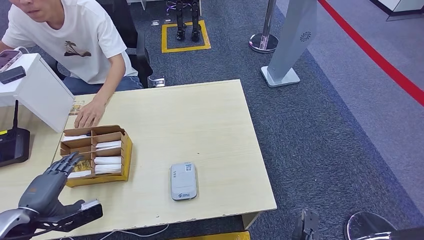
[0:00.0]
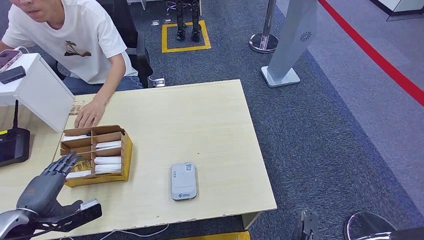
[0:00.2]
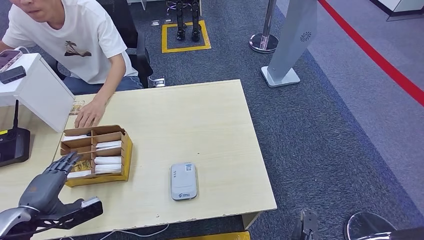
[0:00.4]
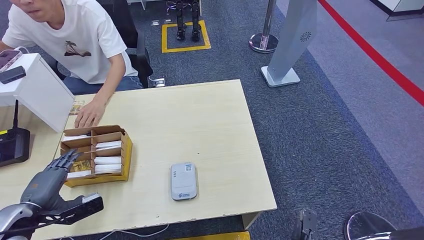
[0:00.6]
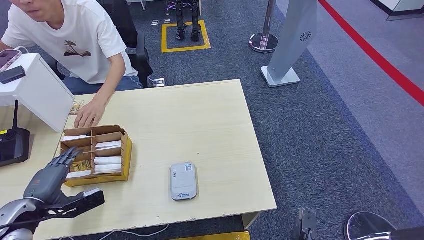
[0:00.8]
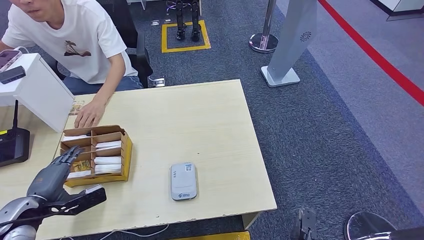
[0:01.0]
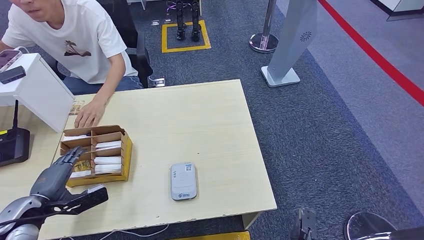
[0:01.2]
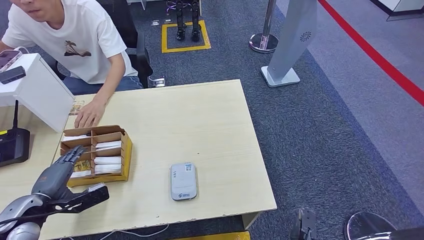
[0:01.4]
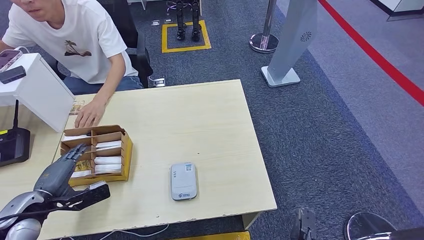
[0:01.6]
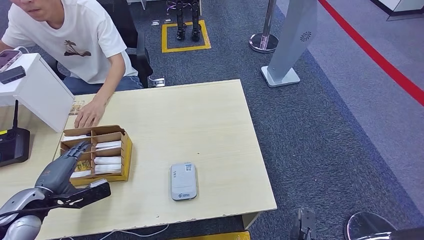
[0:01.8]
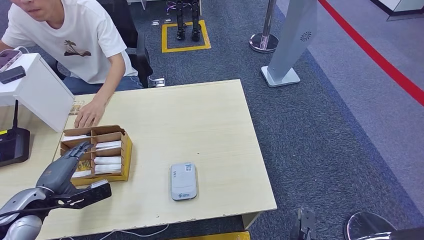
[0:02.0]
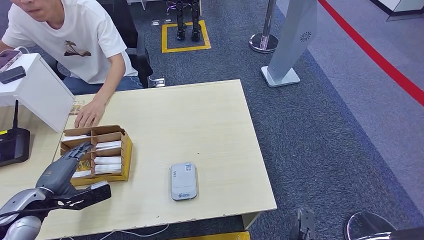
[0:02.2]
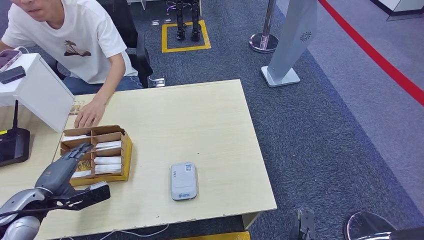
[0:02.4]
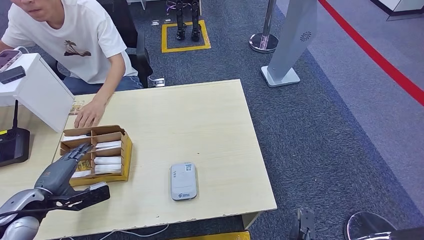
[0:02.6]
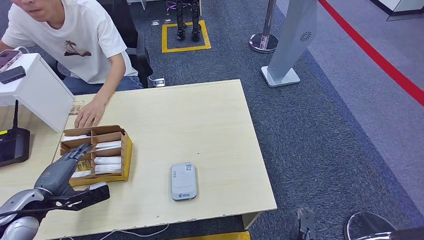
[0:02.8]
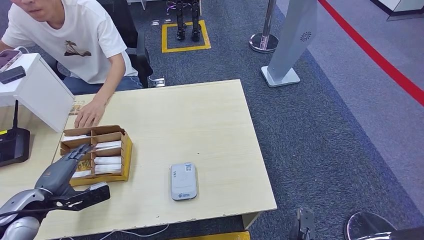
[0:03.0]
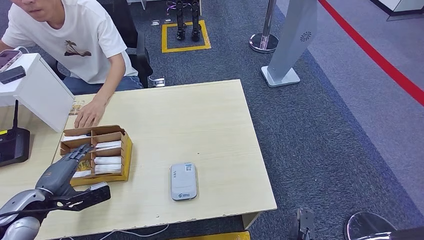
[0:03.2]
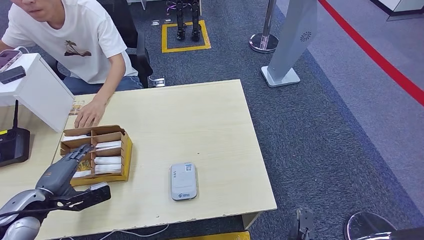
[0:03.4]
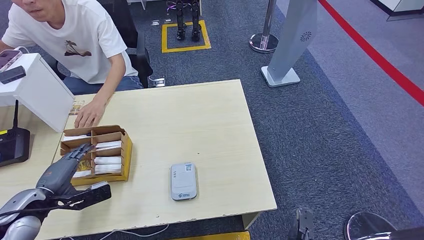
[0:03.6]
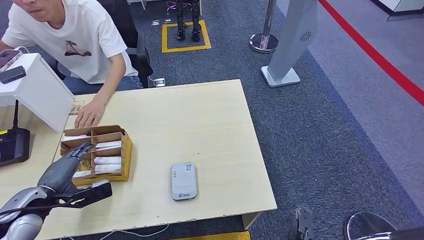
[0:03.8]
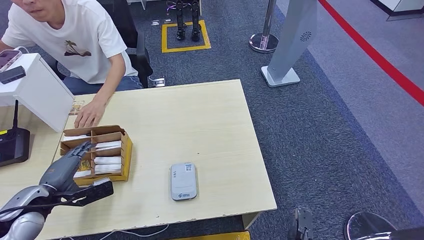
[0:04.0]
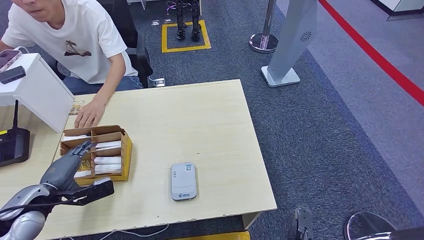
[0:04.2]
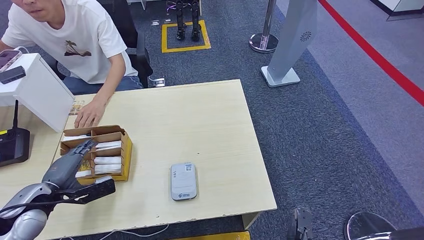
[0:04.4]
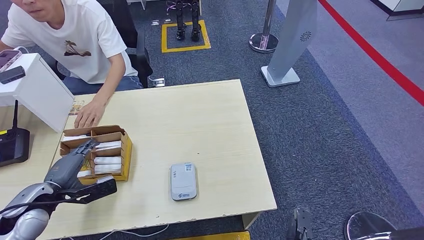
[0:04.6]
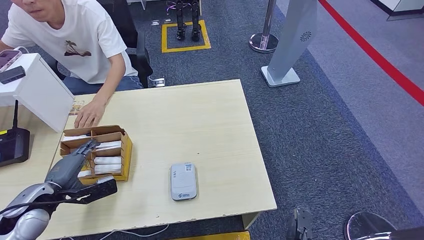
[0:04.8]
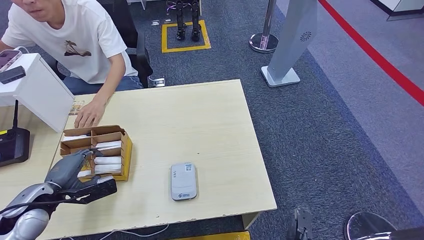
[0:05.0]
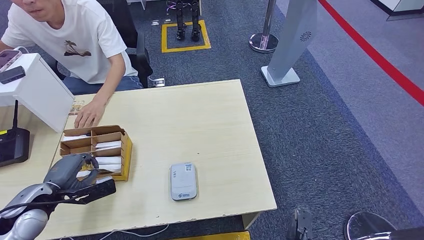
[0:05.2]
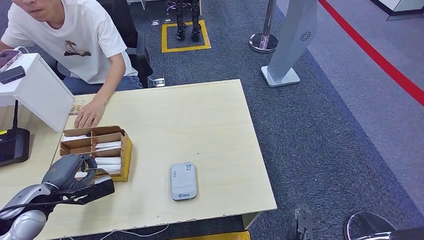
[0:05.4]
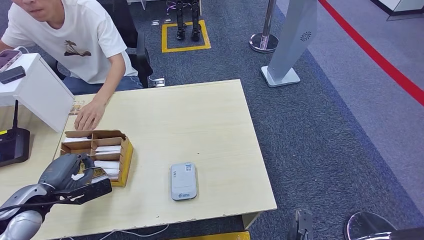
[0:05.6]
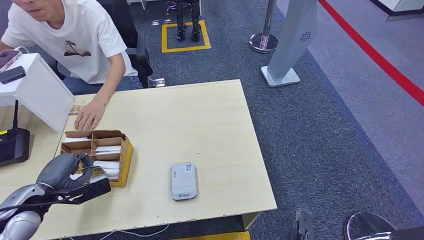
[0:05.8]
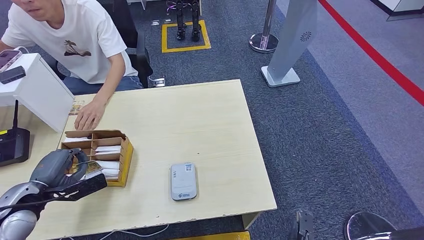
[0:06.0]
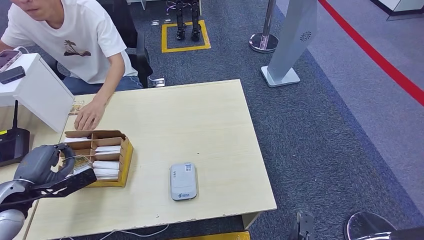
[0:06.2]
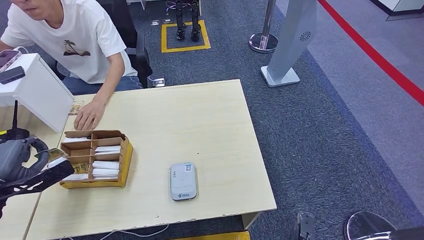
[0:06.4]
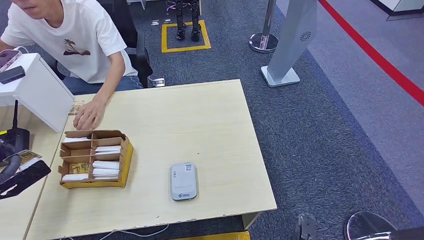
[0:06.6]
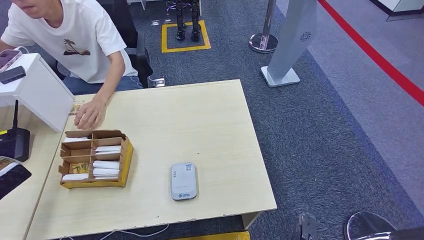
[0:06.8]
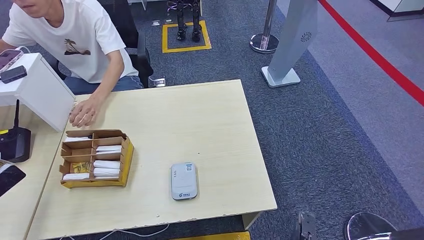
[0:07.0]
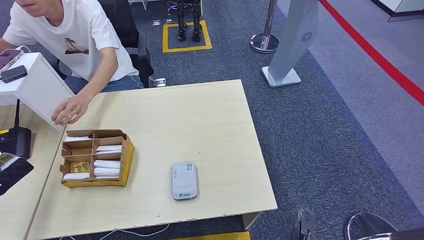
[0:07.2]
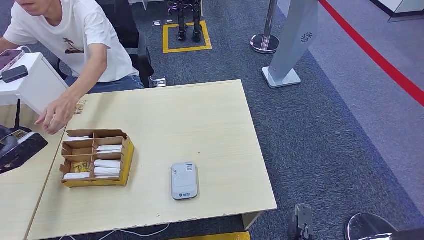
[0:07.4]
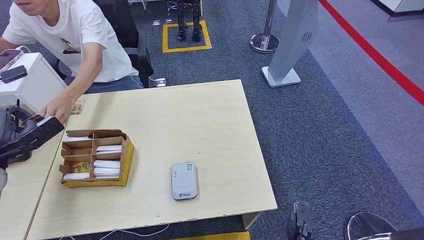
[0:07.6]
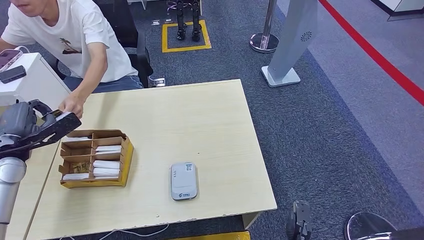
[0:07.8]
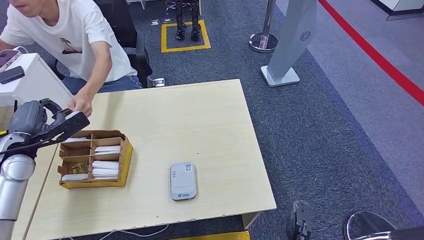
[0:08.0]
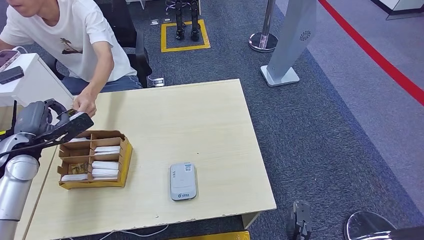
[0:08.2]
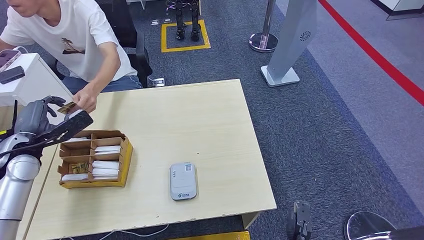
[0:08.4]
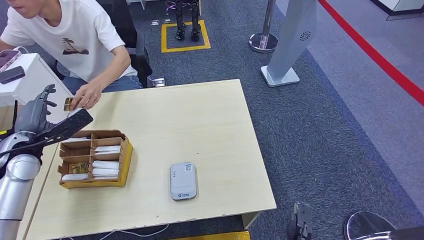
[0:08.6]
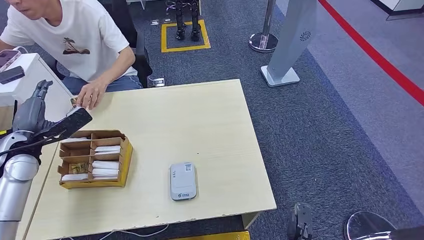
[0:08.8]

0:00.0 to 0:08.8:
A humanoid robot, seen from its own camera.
Step, 0:00.0 to 0:06.4: Pick up the room key from the key card box.
Step, 0:06.6 to 0:08.6: Hand the room key to the person.
0:00.0 to 0:03.0: The hands move only a little.
0:03.0 to 0:04.4: The hands stay close to where they were, moving slightly.
0:04.4 to 0:05.8: Both hands stay about where they are.
0:05.8 to 0:07.4: The left hand heads to the left and upward, covering some 10 cm.
0:07.4 to 0:08.8: The left hand goes roughly 10 cm to the right and forward.

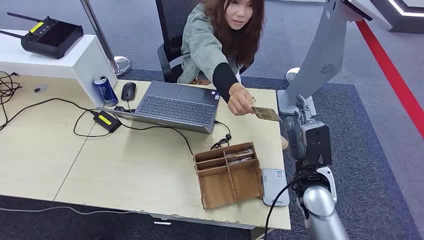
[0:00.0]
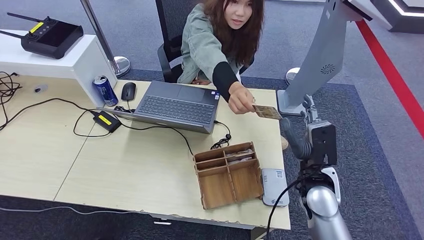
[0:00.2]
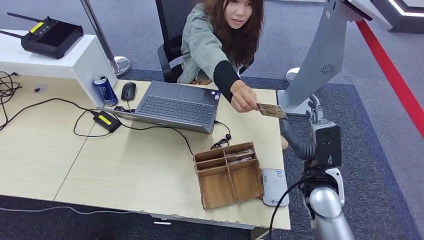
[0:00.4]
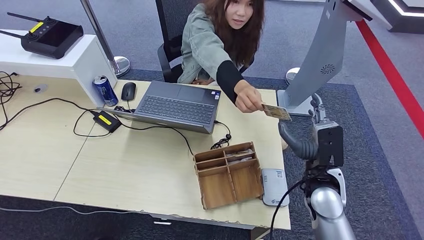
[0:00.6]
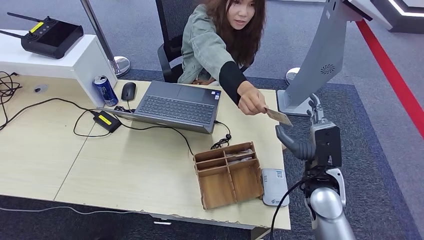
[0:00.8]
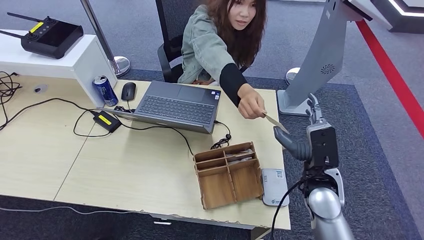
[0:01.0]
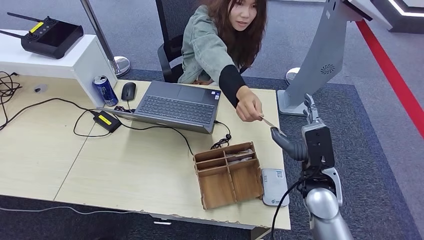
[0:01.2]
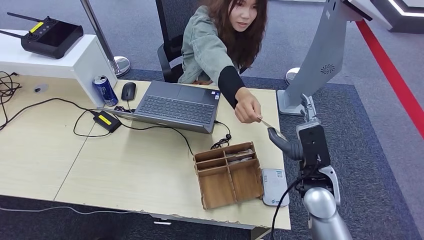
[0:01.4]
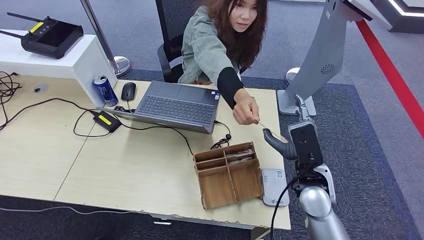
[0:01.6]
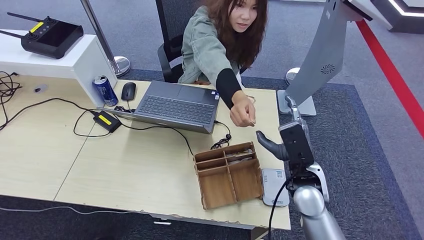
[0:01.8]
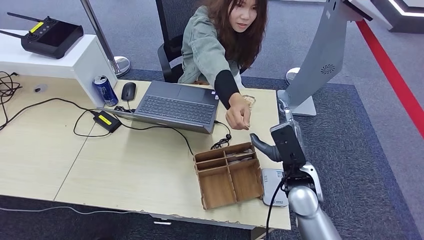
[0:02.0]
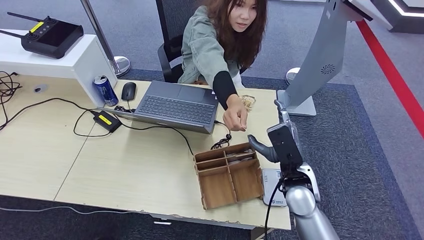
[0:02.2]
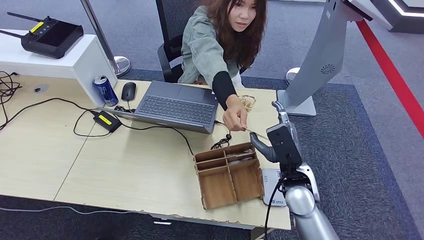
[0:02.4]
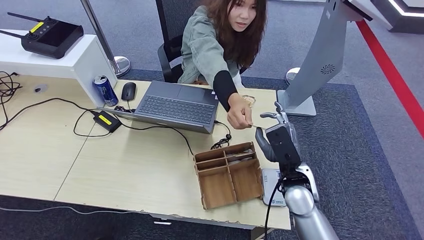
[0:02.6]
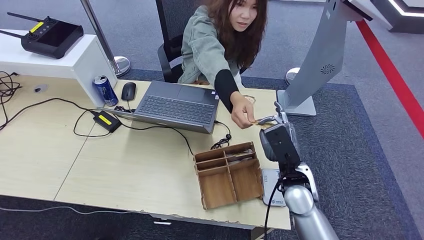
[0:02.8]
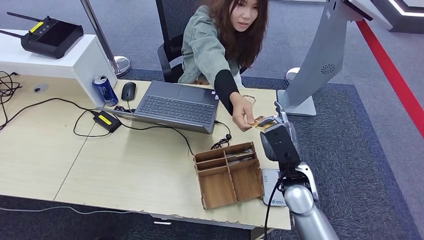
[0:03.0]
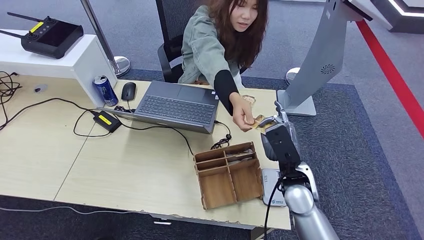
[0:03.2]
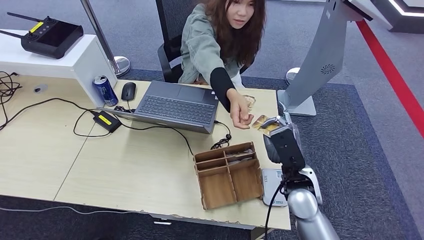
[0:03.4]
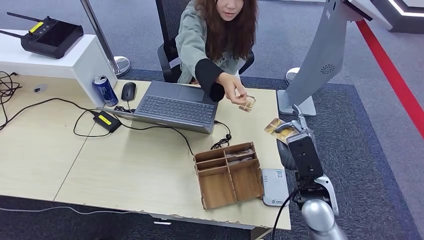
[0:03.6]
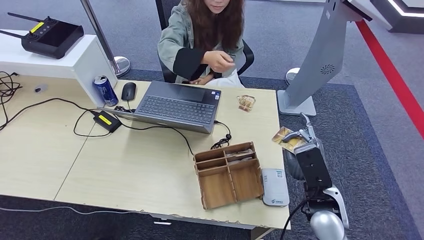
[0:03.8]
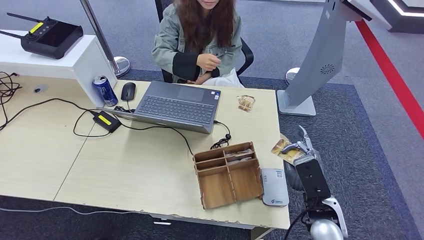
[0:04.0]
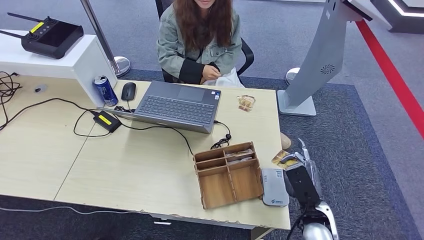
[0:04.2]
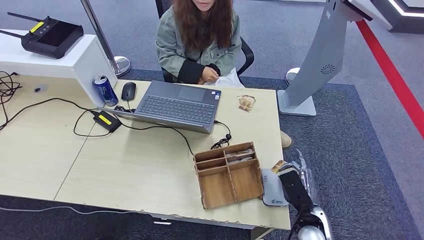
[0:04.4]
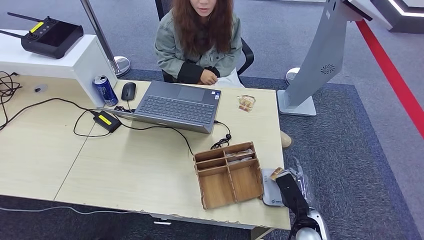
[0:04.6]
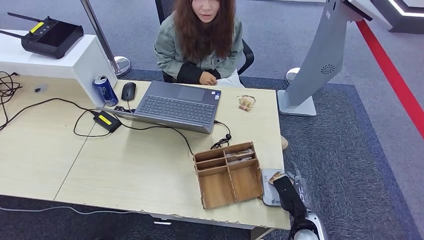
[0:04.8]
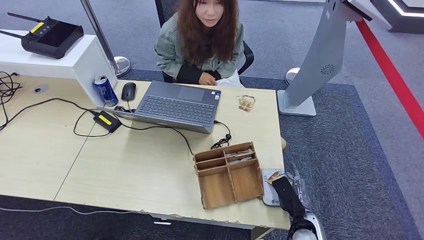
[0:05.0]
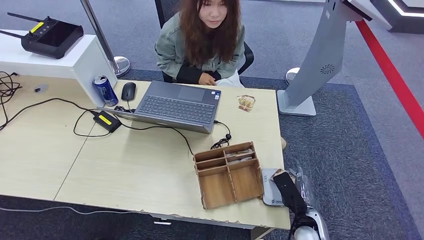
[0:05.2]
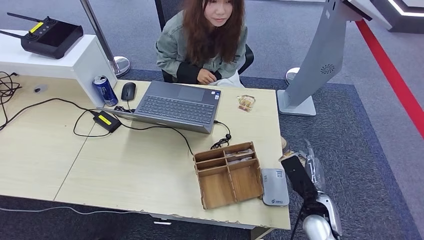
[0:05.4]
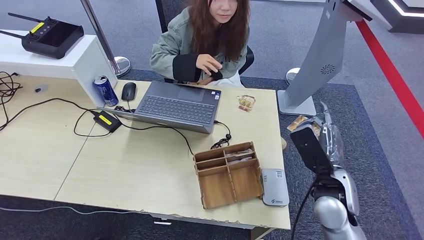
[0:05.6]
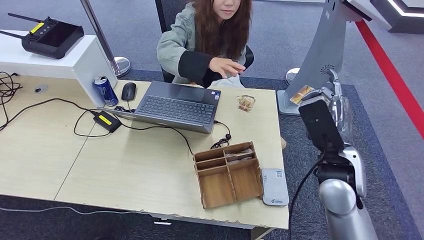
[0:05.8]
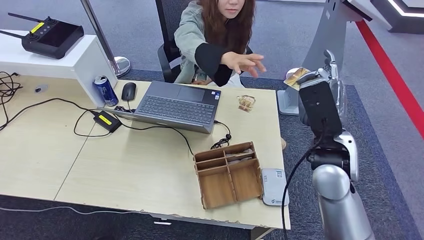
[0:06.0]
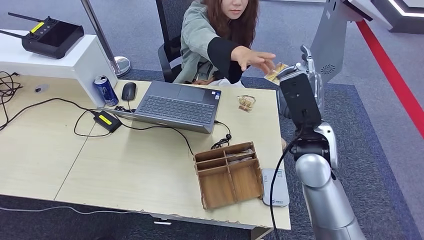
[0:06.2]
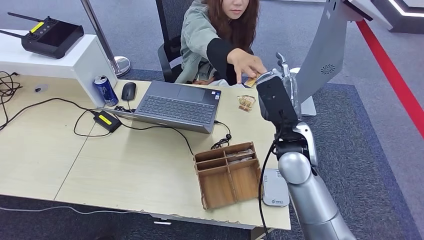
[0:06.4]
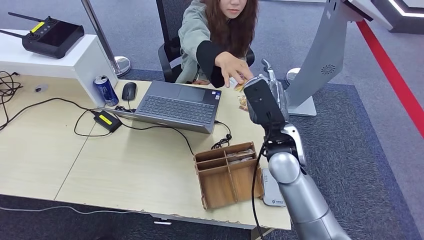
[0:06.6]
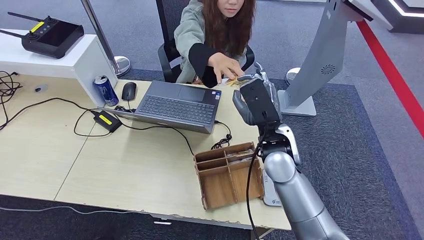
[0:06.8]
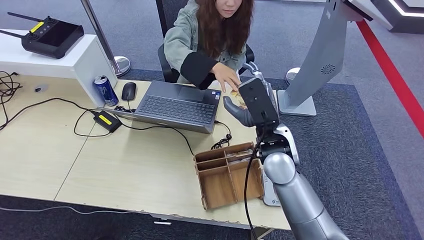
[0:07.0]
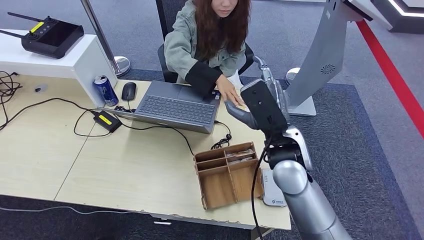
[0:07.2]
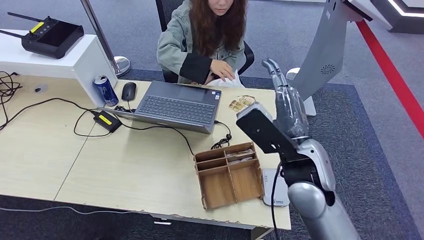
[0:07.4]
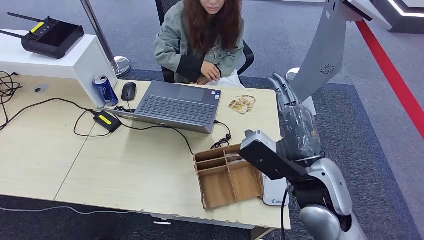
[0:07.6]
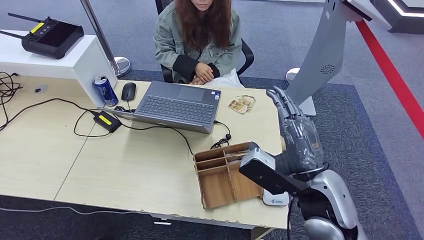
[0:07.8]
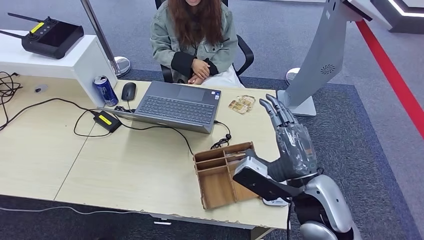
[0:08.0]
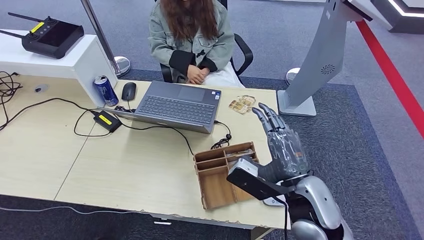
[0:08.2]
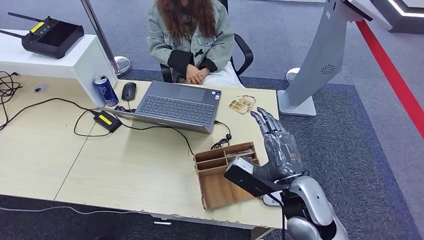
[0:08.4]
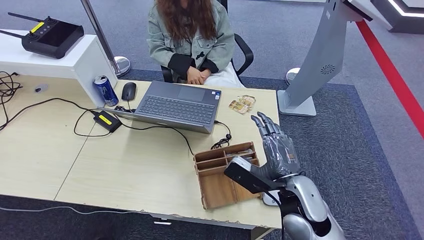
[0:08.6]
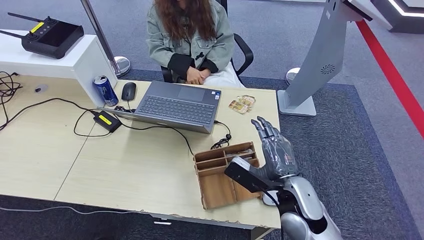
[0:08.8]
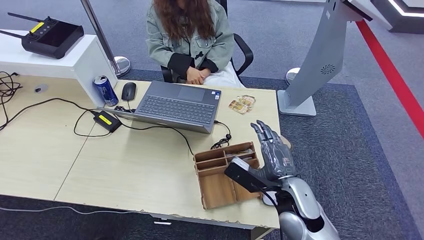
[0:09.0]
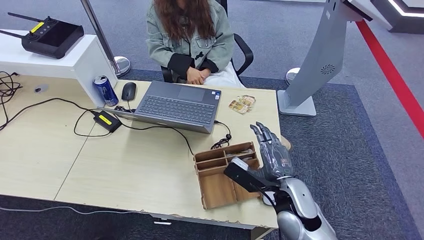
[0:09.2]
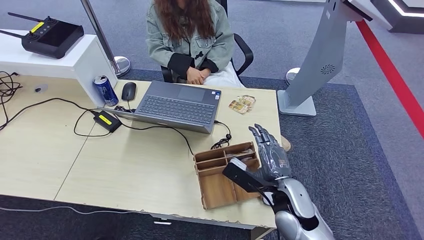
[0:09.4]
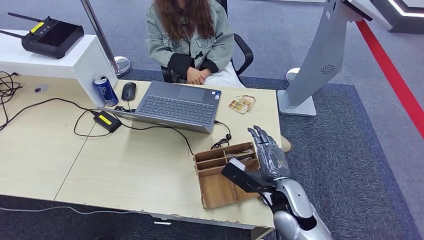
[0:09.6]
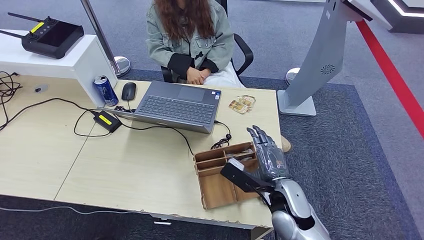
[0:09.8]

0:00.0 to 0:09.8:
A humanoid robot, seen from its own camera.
Step, 0:00.0 to 0:02.0: Take the ID card from the person's hand.
Step, 0:02.2 to 0:05.6: Place the ID card on the card reader.
Step, 0:05.8 to 0:09.6: Hand the ID card to the person.
0:01.4 to 0:02.8: The hands move only a little.
0:02.8 to 0:04.2: The right hand moves backward, downward and to the right, roughly 10 cm.
0:04.2 to 0:05.6: The right hand goes about 10 cm upward and forward.
0:05.6 to 0:07.0: The right hand goes about 15 cm to the left, forward and upward.
0:07.0 to 0:08.4: The right hand travels backward and to the right by some 10 cm.
0:08.4 to 0:09.8: The right hand heads downward, covering approximately 10 cm.
